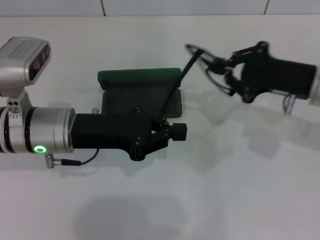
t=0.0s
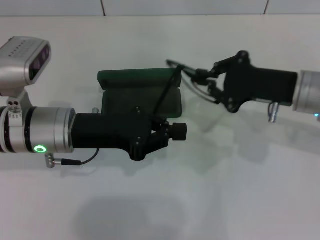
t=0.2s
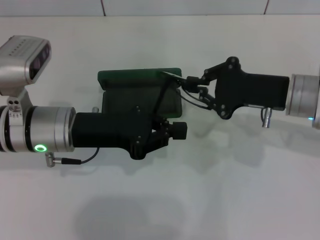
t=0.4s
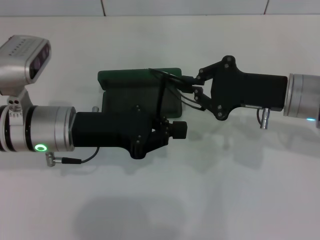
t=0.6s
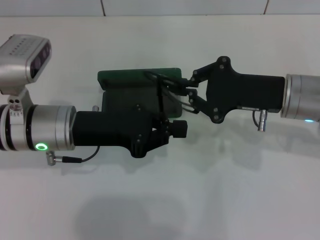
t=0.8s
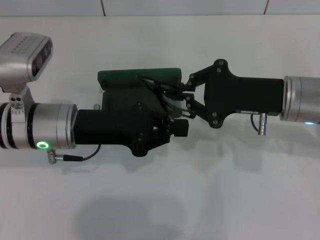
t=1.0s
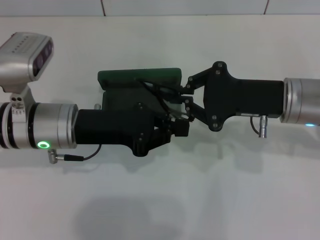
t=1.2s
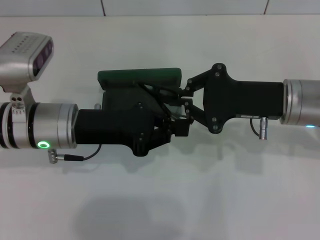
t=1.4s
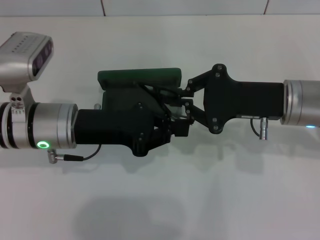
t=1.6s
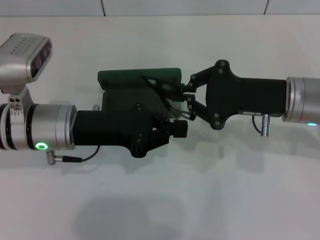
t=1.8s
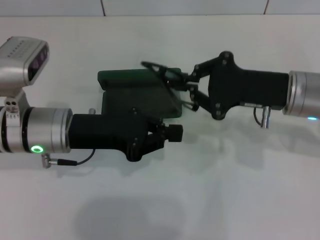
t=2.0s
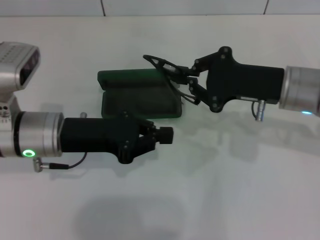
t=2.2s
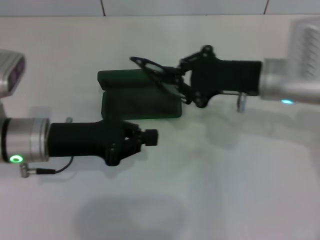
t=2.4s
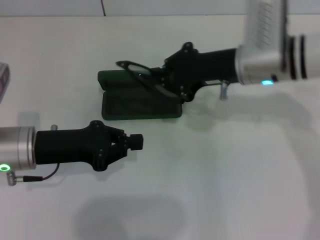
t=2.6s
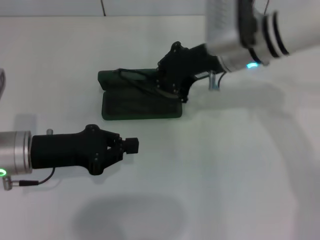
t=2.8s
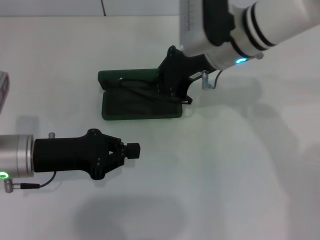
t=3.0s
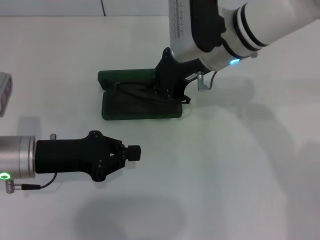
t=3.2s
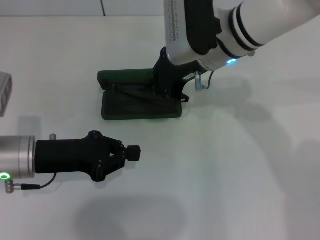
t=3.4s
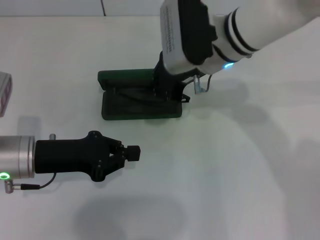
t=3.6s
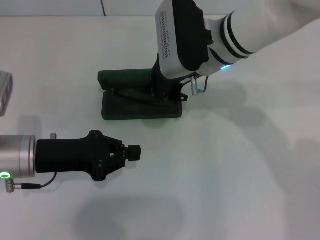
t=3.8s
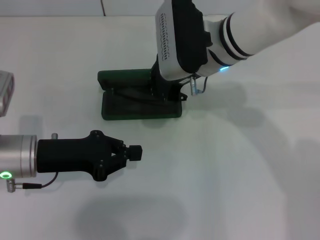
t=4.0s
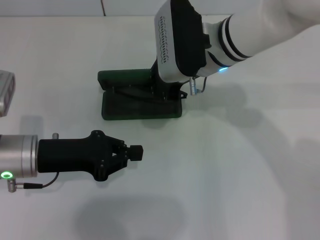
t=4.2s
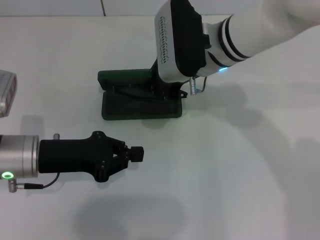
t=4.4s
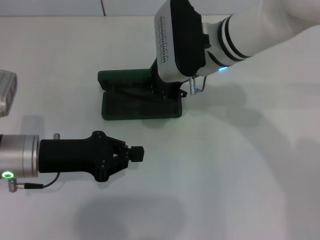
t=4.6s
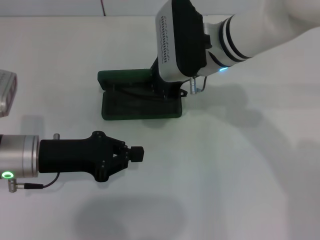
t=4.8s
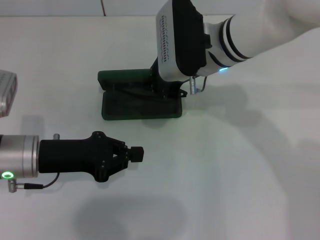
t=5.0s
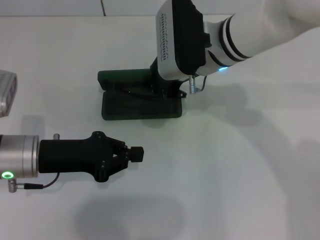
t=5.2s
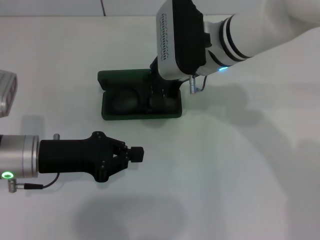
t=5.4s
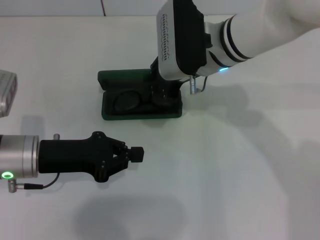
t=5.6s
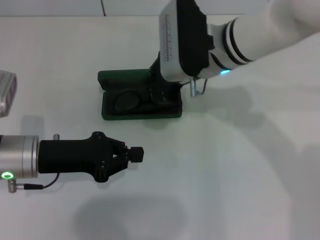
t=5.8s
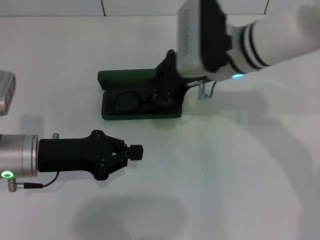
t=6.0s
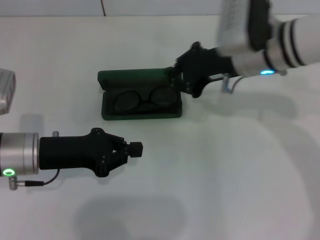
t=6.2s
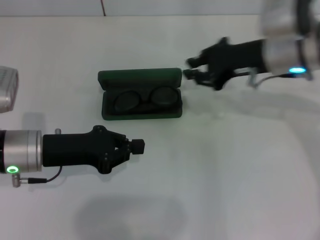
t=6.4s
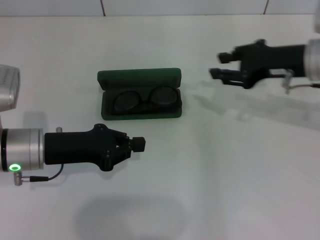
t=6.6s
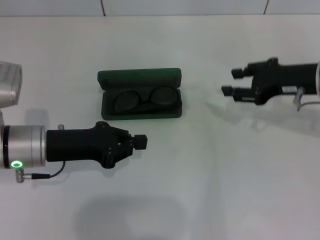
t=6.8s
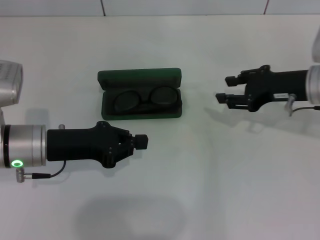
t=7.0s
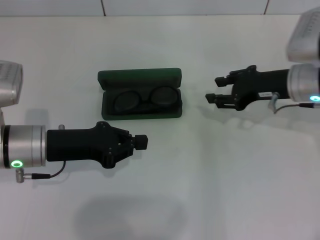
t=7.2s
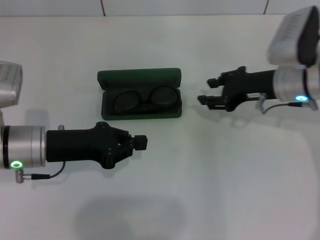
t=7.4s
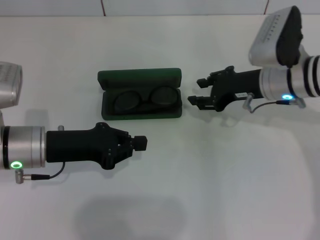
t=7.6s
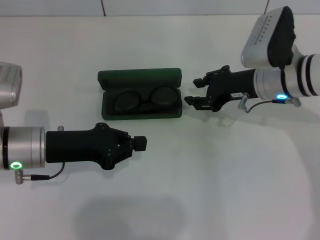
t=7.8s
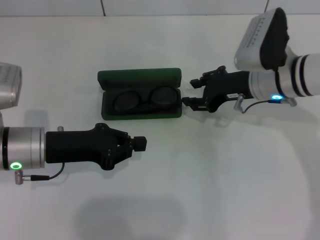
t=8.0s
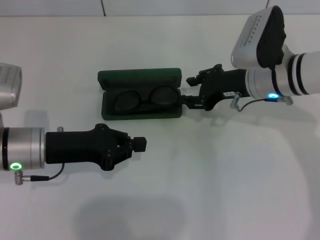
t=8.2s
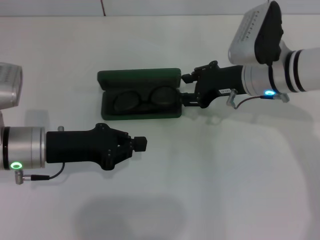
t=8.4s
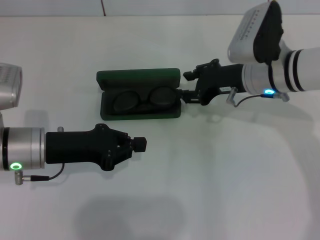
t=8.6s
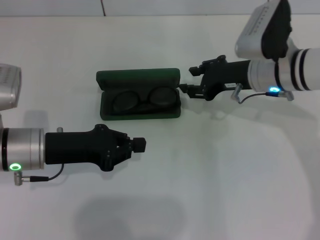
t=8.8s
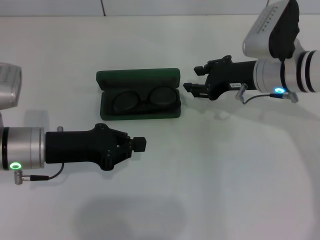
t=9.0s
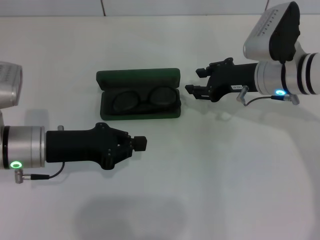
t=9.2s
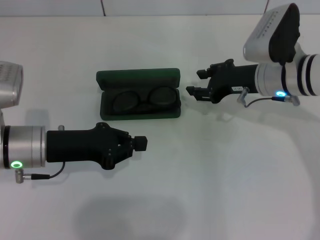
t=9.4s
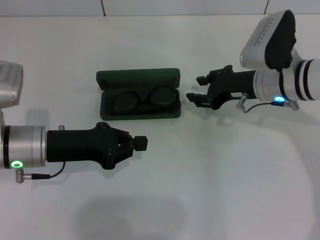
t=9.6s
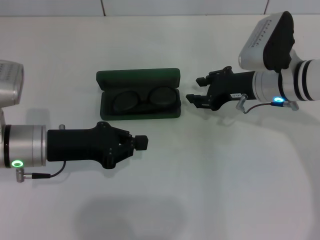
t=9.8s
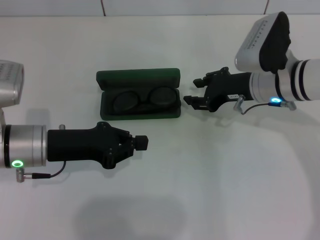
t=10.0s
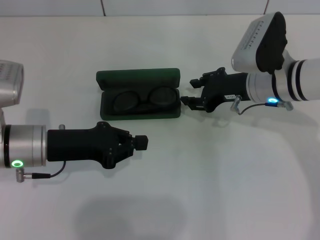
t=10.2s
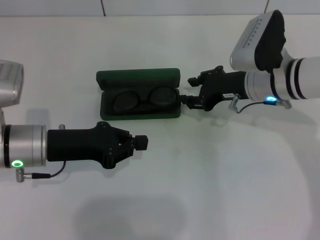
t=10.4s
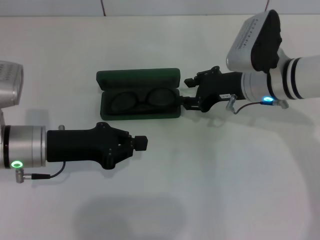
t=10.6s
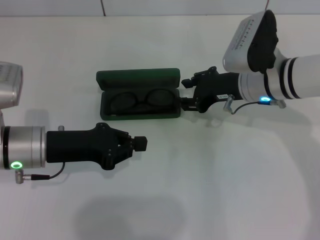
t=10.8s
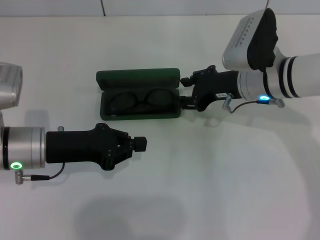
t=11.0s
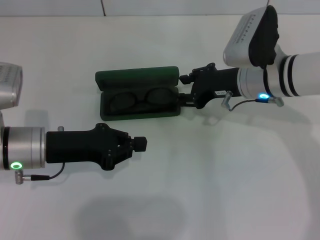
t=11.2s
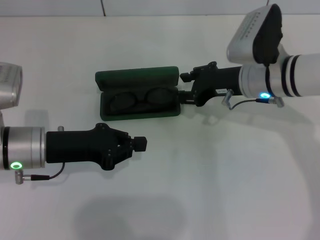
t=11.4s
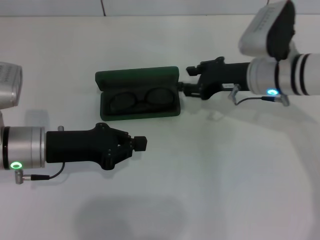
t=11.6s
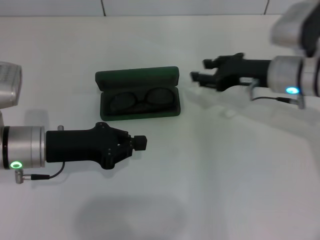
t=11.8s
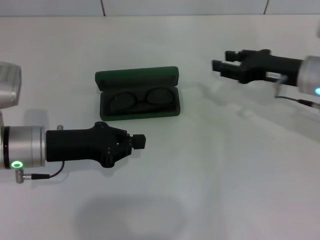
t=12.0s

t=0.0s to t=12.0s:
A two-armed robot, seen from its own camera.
Step, t=1.8s to t=11.6s: Put the glasses into the case with your right hand.
t=0.0s to t=1.6s: The right gripper moves about 5 cm.
t=1.6s to t=3.0s: The left gripper goes about 5 cm to the left. The right gripper moves to the left and forward, about 15 cm.
t=3.0s to t=6.0s: There are only small adjustments of the grippers.
t=6.0s to t=7.6s: The right gripper travels to the right and downward by approximately 10 cm, and opens up.
t=7.6s to t=10.4s: The grippers make only small movements.
t=10.4s to t=12.0s: The right gripper moves to the right, some 10 cm.

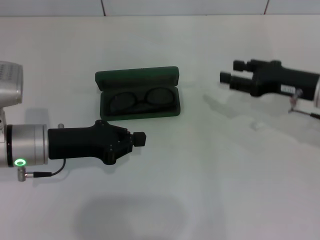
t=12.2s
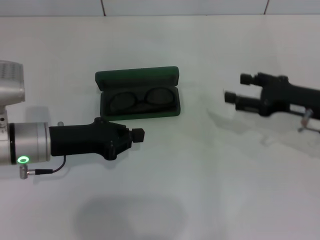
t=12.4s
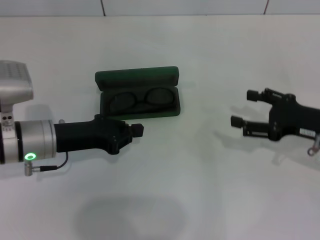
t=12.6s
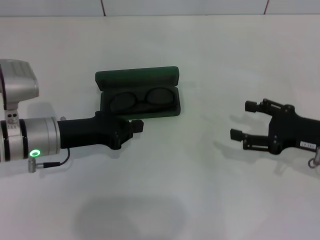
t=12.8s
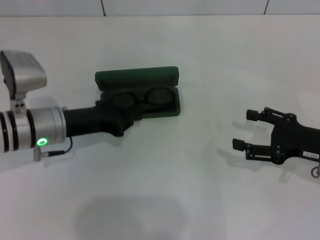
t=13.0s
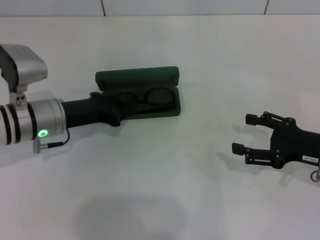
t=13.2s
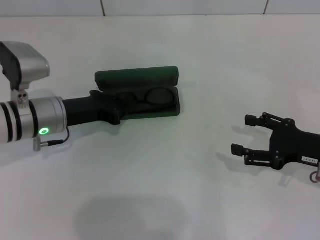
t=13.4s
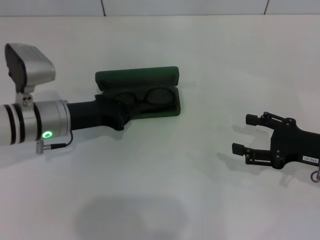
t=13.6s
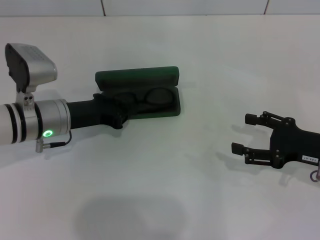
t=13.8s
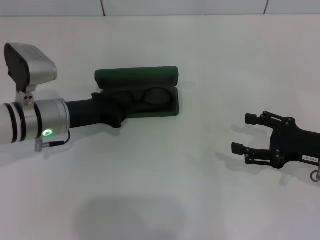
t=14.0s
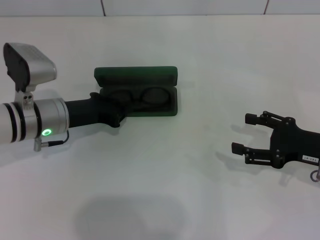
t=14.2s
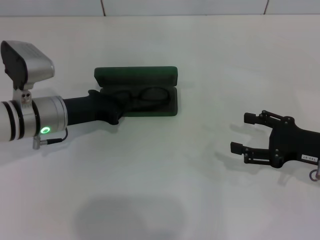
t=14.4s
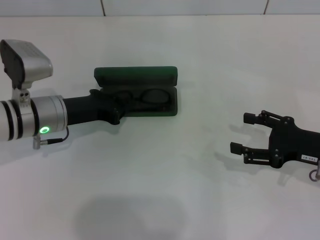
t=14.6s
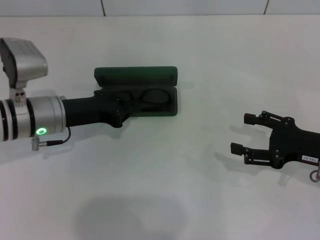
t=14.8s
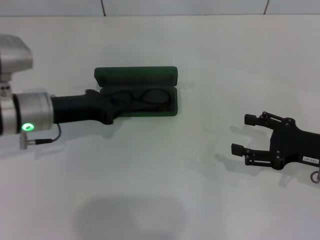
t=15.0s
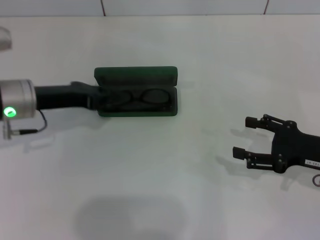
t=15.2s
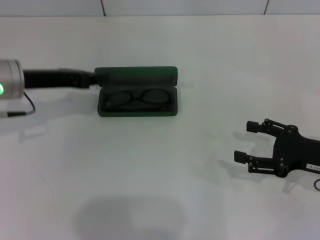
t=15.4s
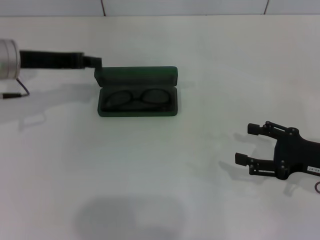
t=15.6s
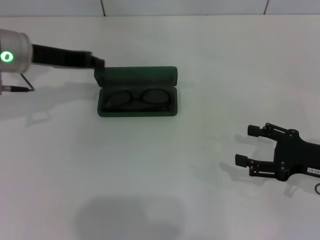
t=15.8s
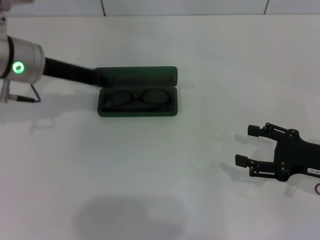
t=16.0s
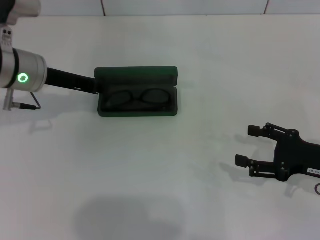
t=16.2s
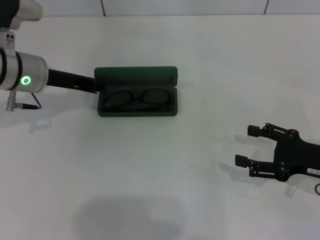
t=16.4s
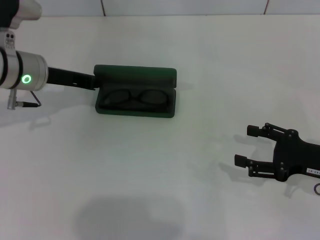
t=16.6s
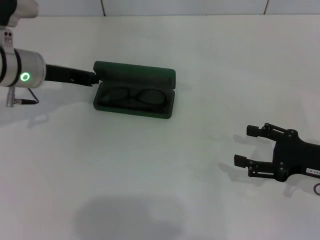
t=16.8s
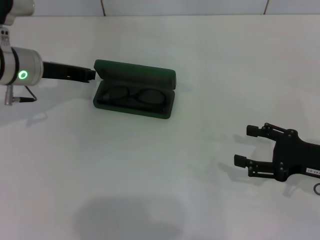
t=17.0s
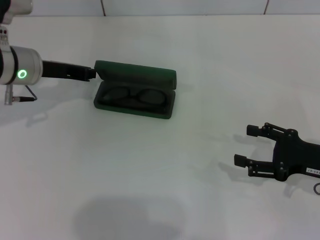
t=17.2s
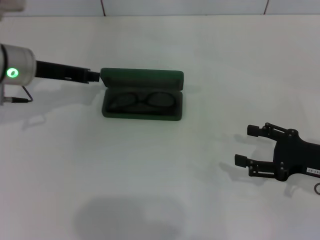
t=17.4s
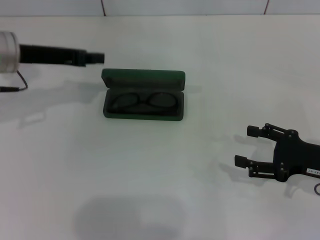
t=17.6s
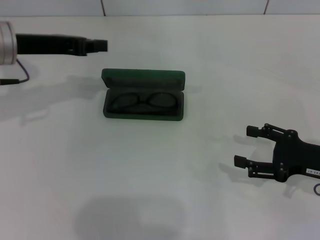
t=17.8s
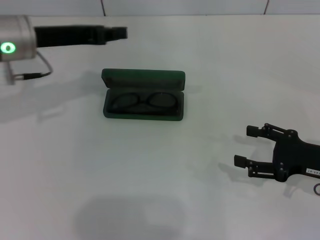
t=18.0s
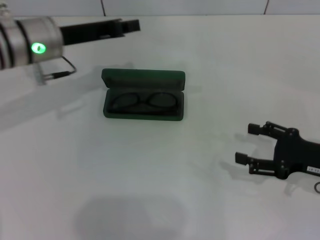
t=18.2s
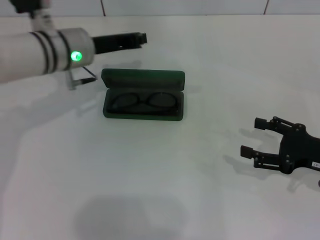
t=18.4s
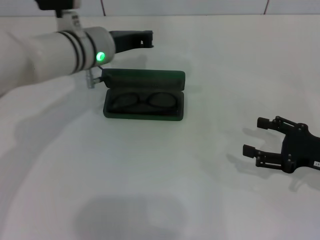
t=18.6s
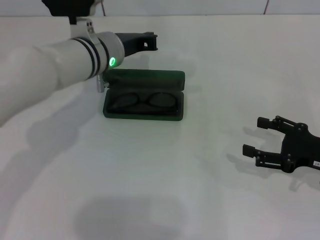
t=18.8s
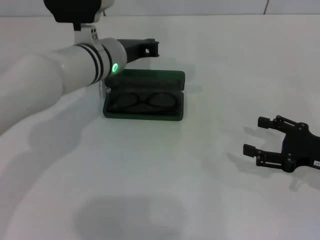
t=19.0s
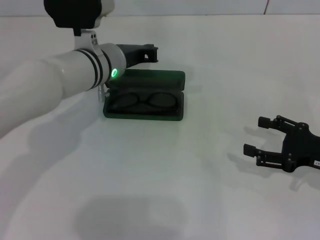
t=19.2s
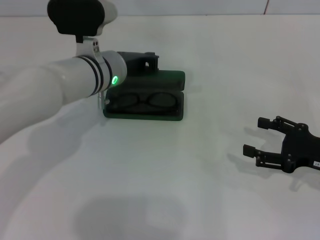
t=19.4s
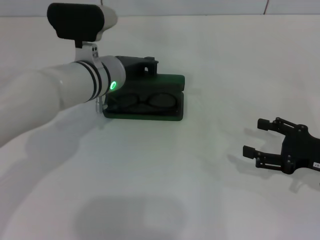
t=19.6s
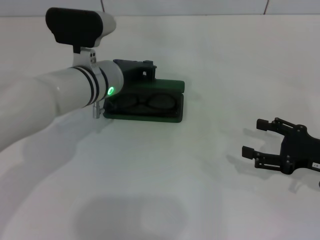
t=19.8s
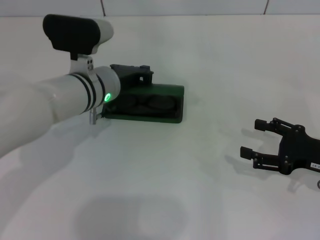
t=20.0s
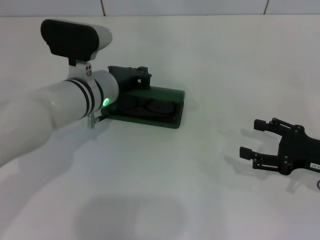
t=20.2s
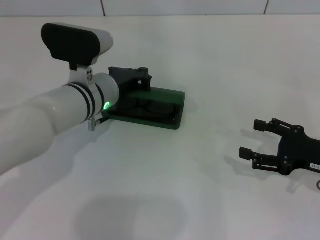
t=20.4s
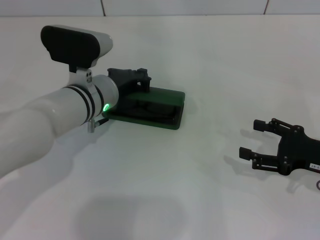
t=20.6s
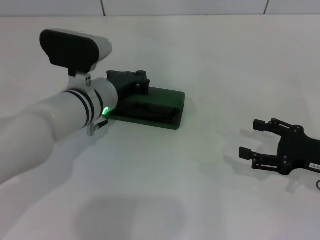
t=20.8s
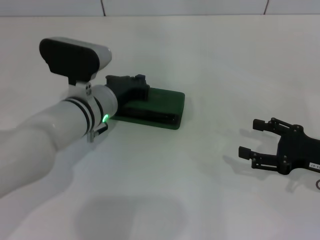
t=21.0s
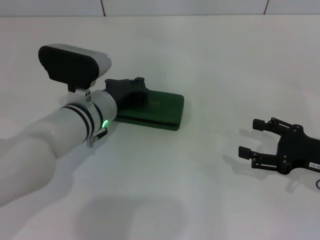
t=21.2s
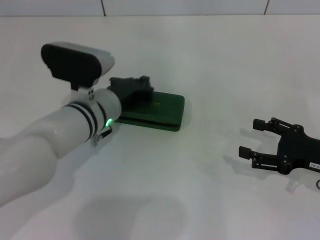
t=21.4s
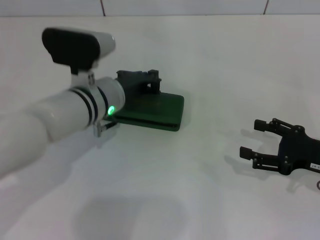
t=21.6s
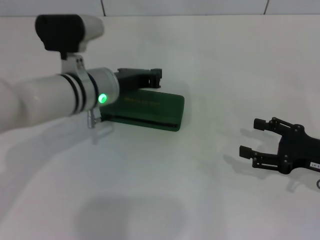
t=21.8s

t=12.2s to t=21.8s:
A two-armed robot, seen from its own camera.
t=12.2s to t=13.8s: The left gripper changes place by roughly 5 cm, while the right gripper moves backward, roughly 10 cm, and opens up.
t=13.8s to t=15.4s: The left gripper heads upward, covering some 5 cm.
t=17.0s to t=18.6s: The left gripper shifts some 10 cm to the right.
t=18.6s to t=20.2s: The left gripper ends up roughly 5 cm from where it was.
t=20.2s to t=21.8s: There are only small adjustments of the grippers.

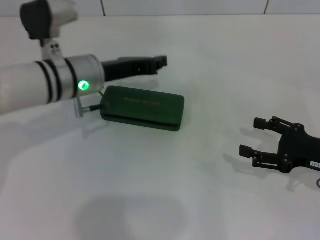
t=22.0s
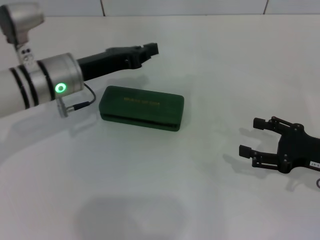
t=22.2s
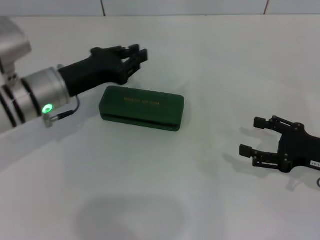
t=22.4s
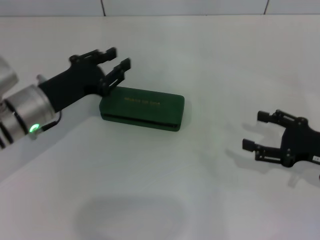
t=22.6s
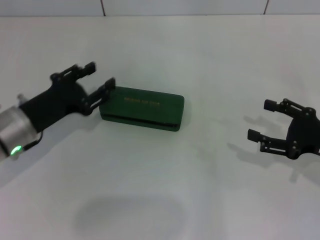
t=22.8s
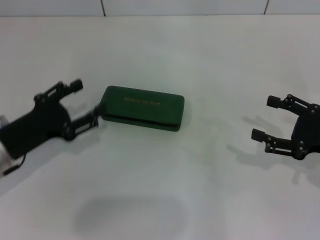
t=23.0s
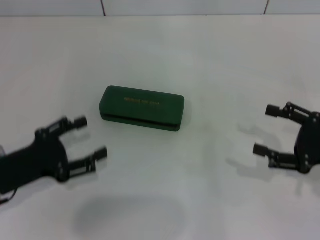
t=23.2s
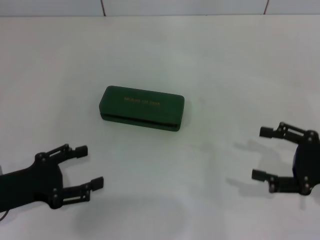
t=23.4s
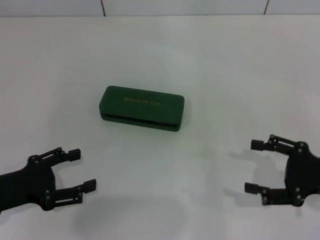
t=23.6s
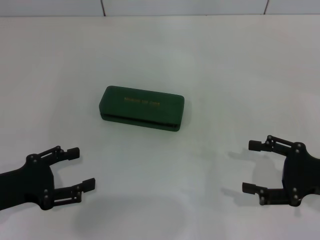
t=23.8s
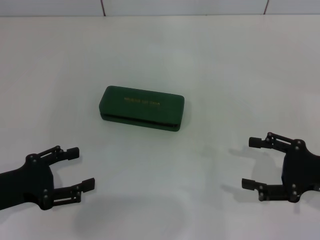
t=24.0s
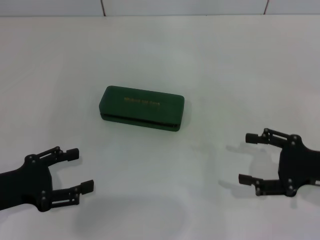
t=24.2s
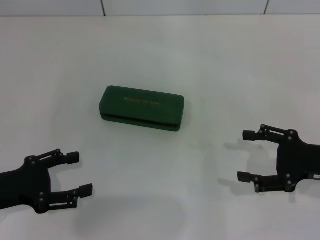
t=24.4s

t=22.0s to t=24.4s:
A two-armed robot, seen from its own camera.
t=22.0s to t=23.2s: The left gripper moves backward and to the left, roughly 20 cm, and opens its fingers.
t=23.2s to t=24.4s: The grippers move only a little.
